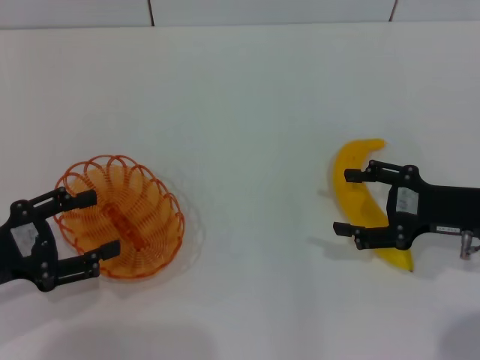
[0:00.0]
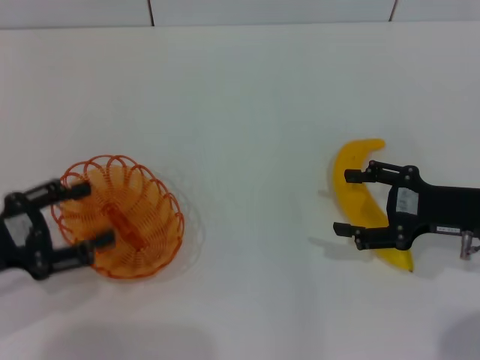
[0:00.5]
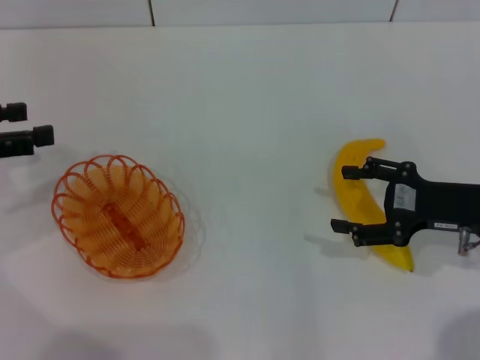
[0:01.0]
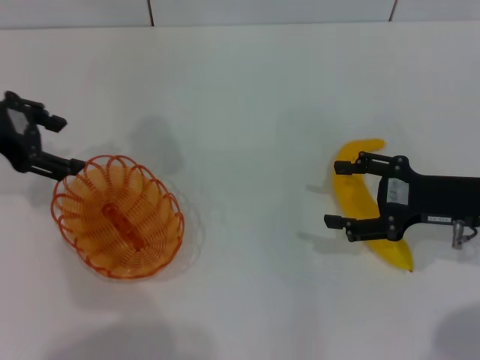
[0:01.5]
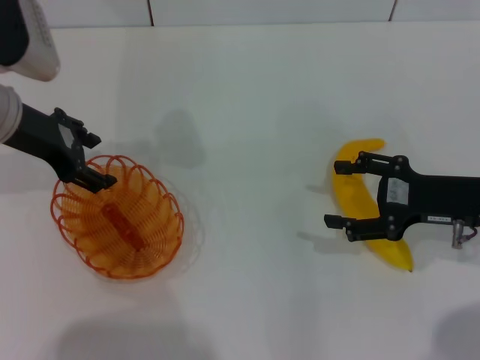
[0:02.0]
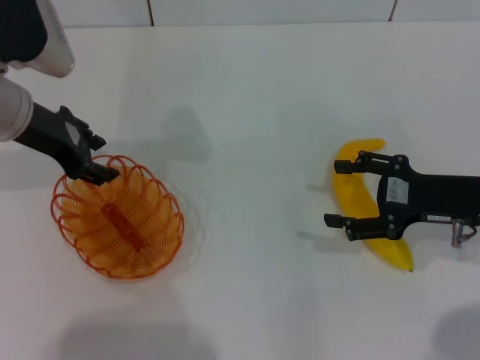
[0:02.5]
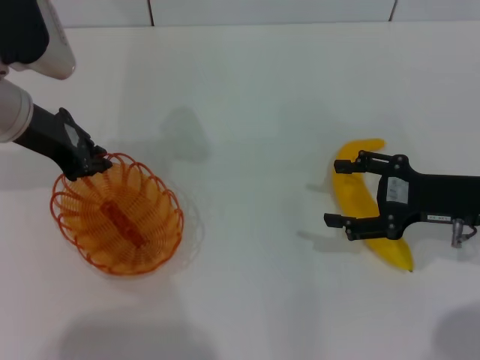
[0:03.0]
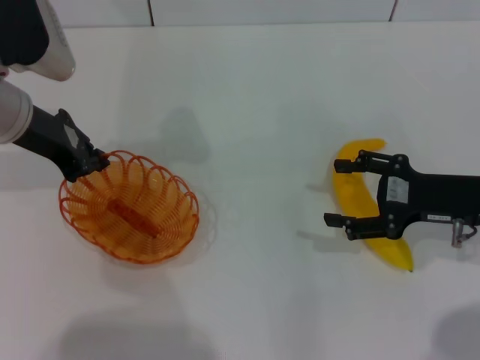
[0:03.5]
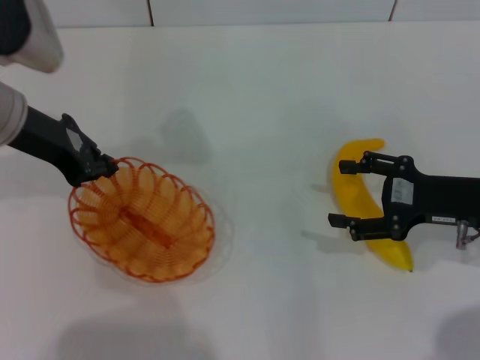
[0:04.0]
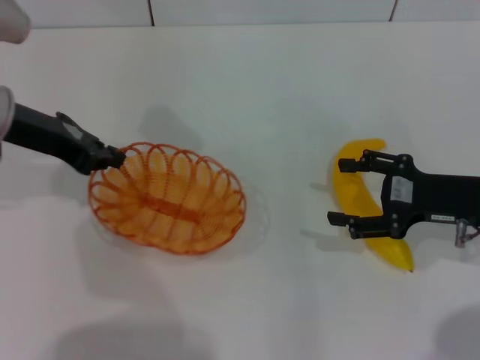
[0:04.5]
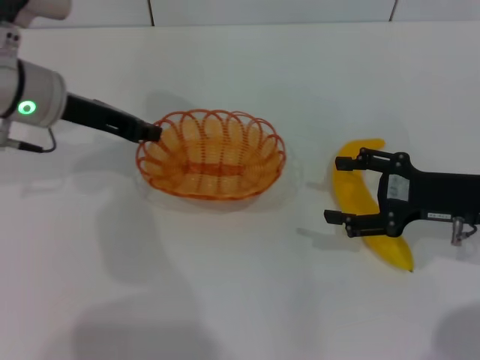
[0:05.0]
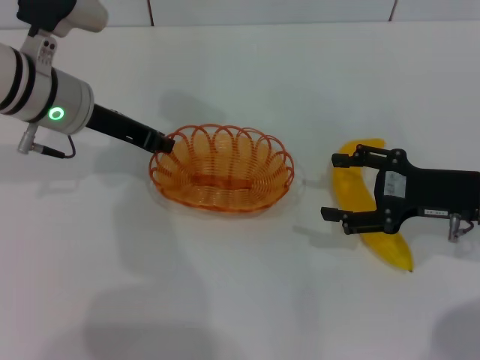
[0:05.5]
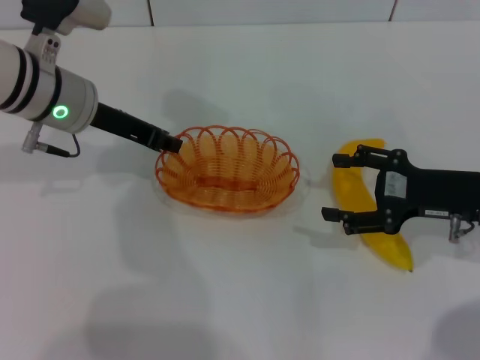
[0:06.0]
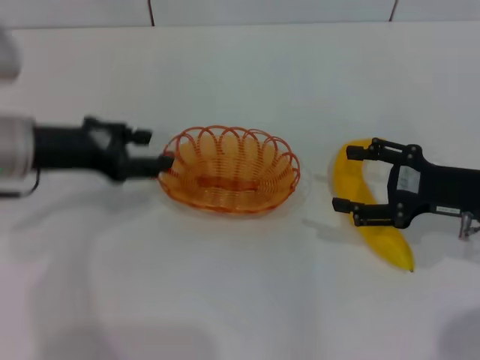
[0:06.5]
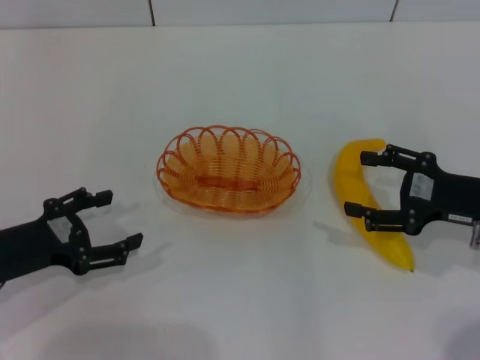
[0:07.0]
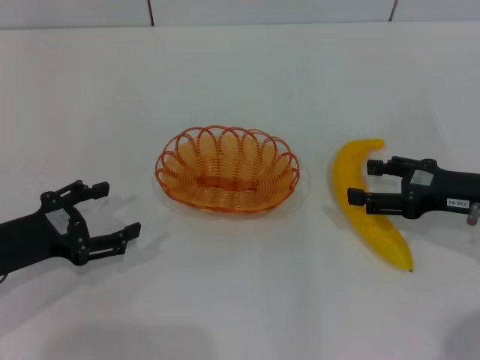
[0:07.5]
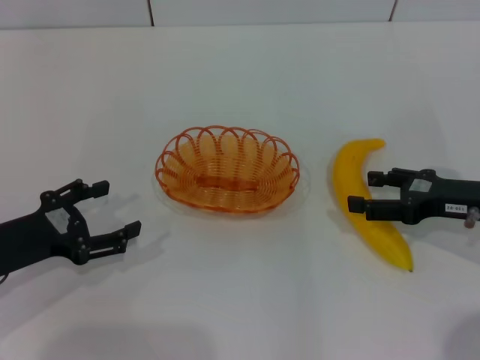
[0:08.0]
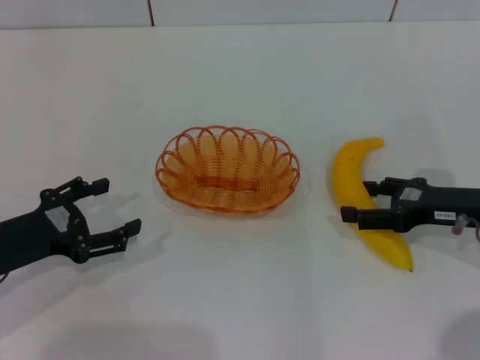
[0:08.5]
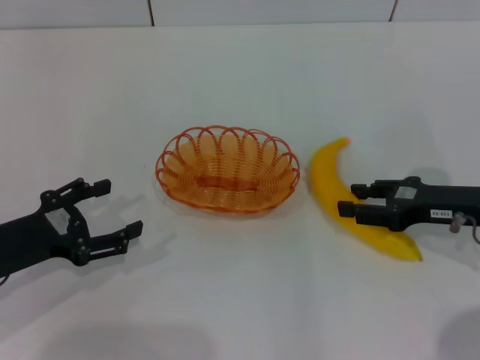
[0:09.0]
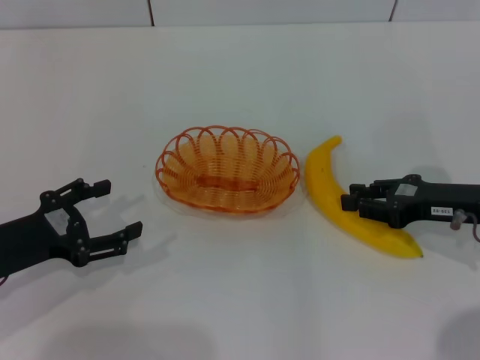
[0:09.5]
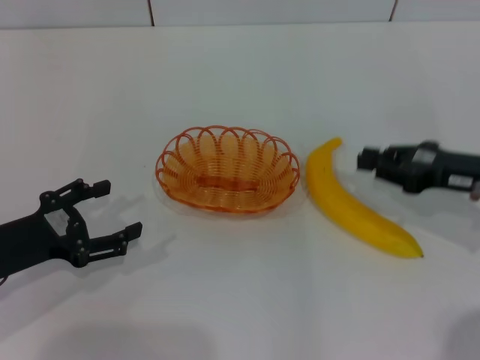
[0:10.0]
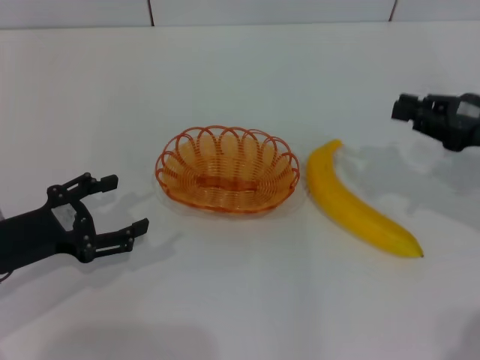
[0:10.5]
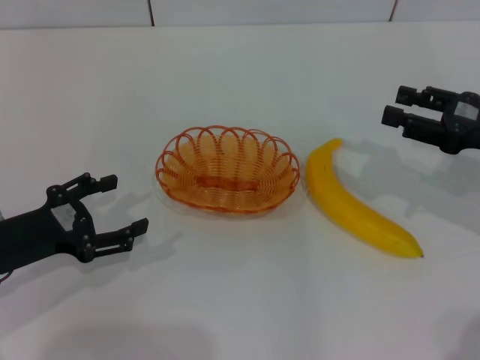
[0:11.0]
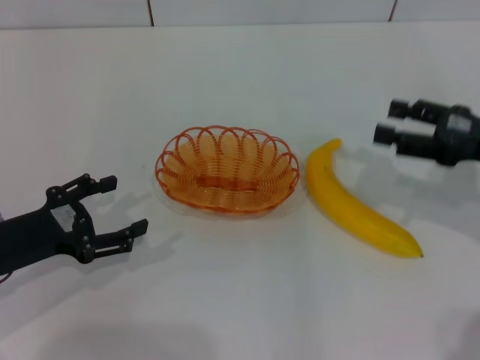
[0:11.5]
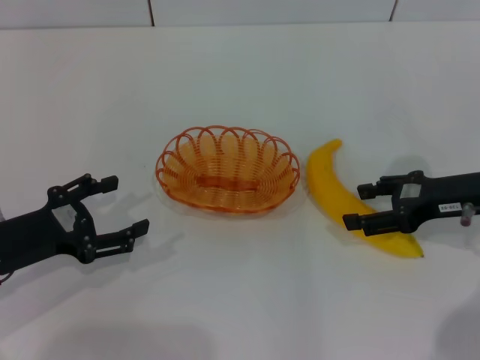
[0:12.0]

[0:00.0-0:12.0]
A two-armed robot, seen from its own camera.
Step, 0:00.0 to 0:04.0: Pick up the basket with the left gripper.
Step, 0:04.5 to 0:06.5: Place the basket in the center of view with the left gripper.
0:00.0 to 0:02.0: The left gripper is displaced forward, upward and to the right by about 20 cm.
0:02.0 to 0:04.0: The left gripper closes up.
0:04.0 to 0:06.0: The left gripper is displaced to the right by approximately 5 cm.
0:06.0 to 0:08.0: The left gripper travels backward, to the left and downward by about 20 cm, and opens.
0:08.0 to 0:10.0: The right gripper closes.
0:10.0 to 0:12.0: The right gripper opens.

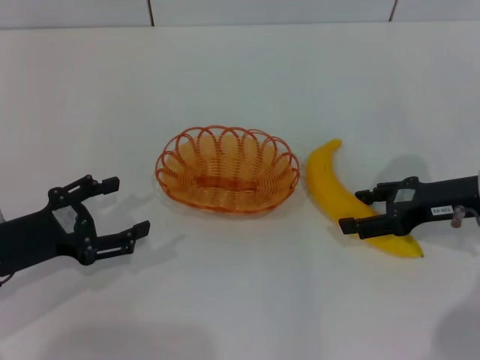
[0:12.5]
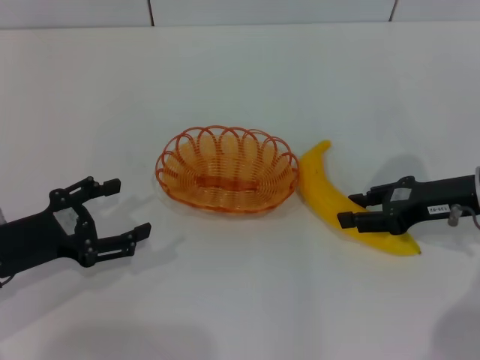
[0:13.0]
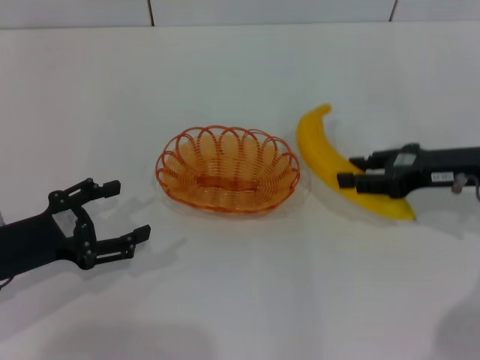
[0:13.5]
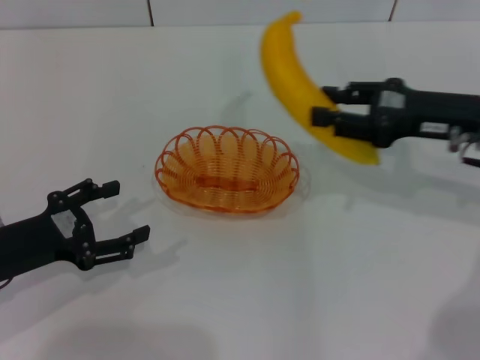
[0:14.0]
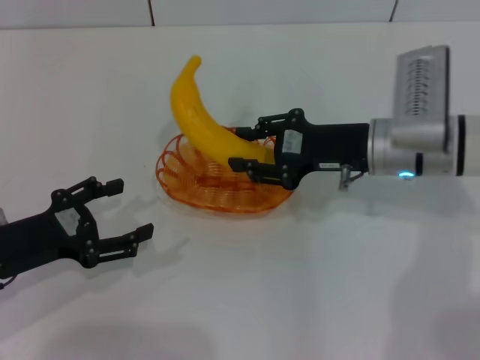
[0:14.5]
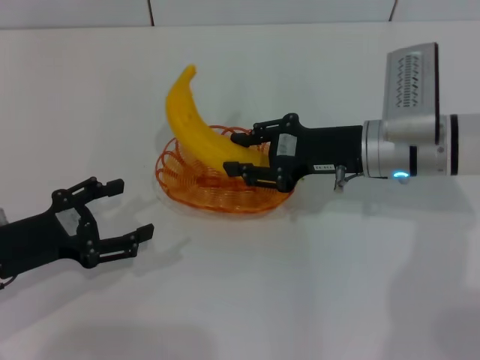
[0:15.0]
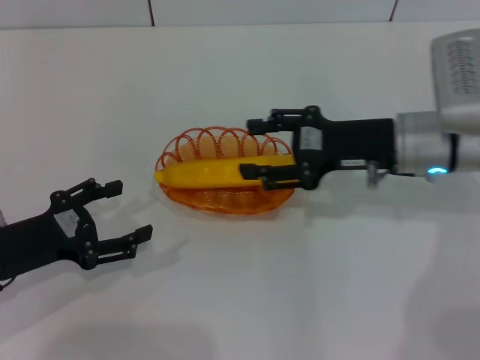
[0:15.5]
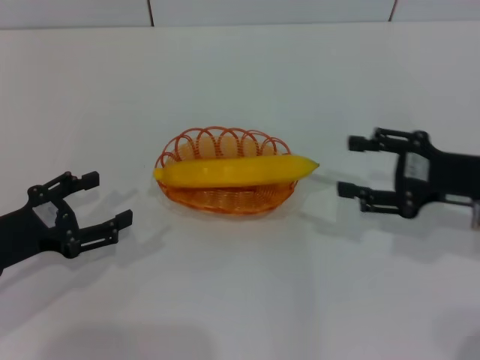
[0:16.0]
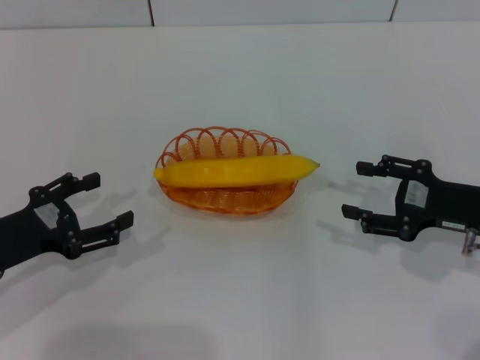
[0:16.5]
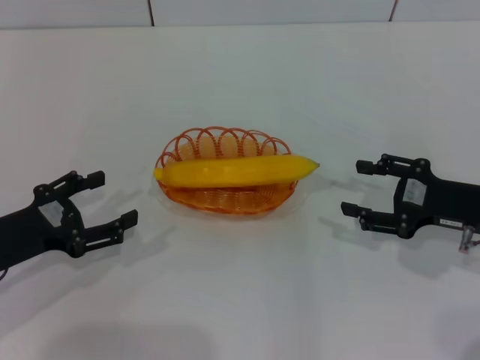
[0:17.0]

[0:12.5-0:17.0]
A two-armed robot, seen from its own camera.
Step, 0:14.0 to 0:15.5: Place the banana into the basket with the right gripper.
0:12.5 to 0:14.5: The right gripper goes roughly 10 cm to the left, and closes up.
0:14.5 to 0:17.0: The right gripper heads to the right and backward, covering some 15 cm, and opens up.

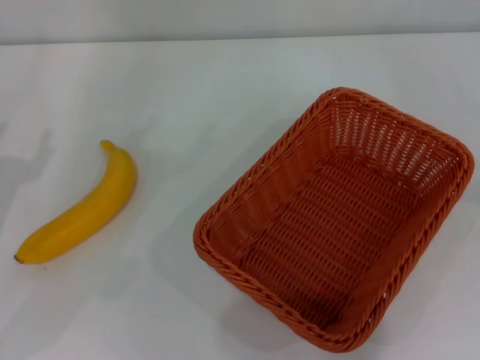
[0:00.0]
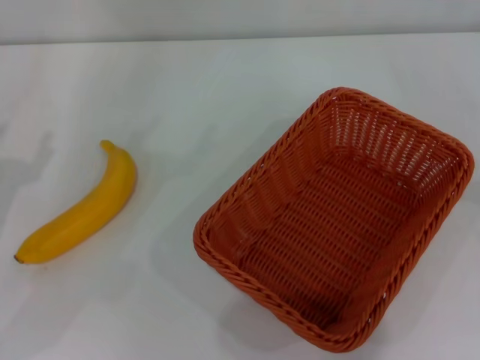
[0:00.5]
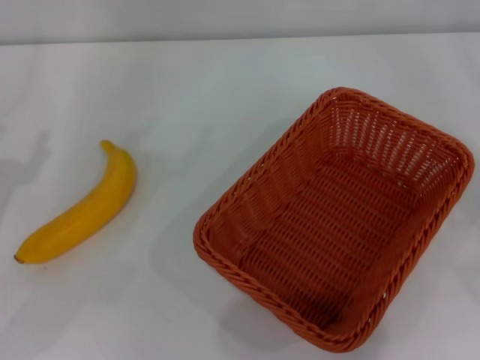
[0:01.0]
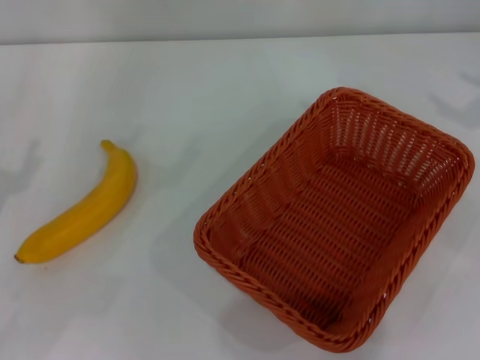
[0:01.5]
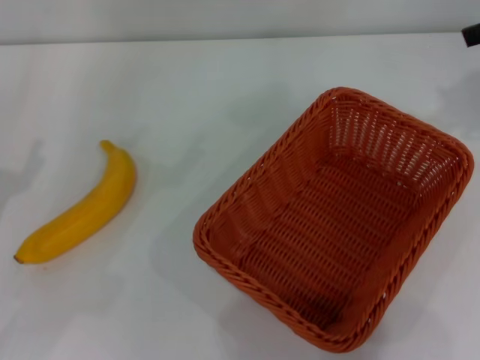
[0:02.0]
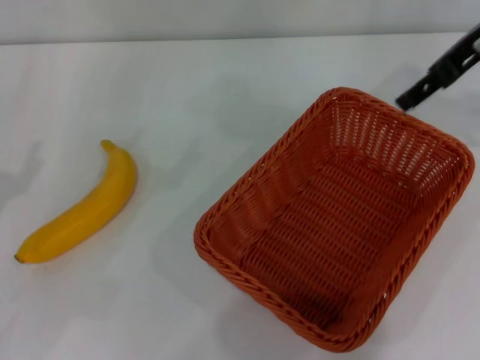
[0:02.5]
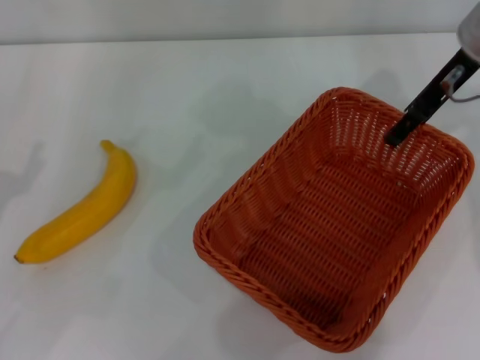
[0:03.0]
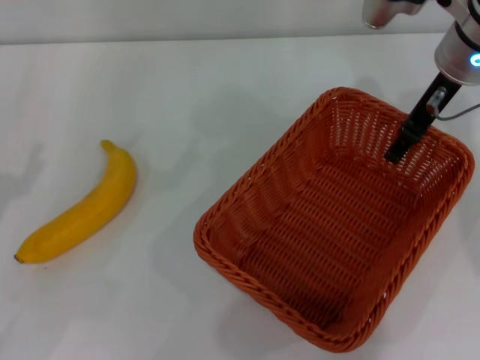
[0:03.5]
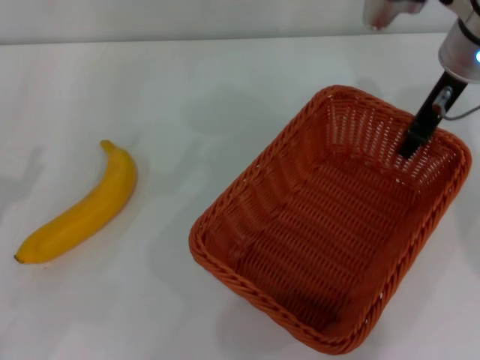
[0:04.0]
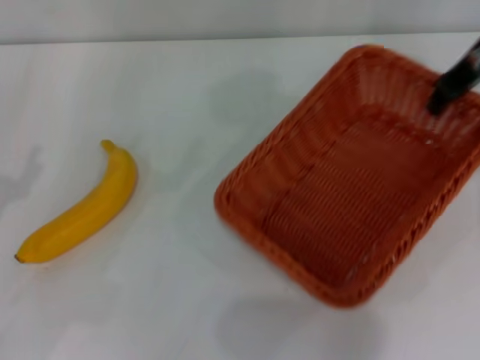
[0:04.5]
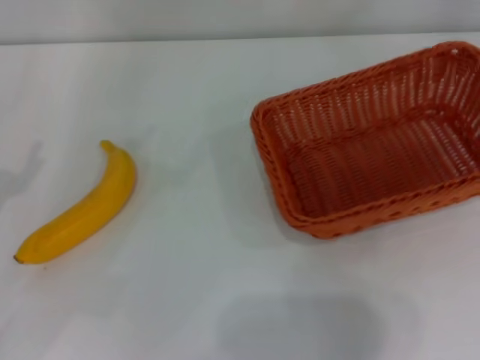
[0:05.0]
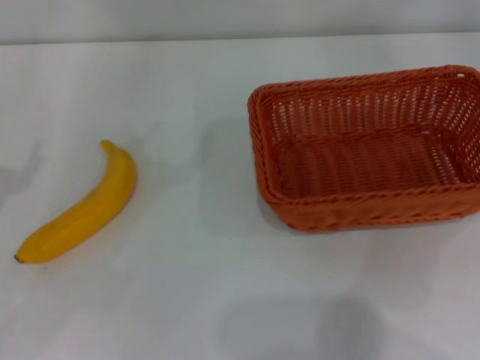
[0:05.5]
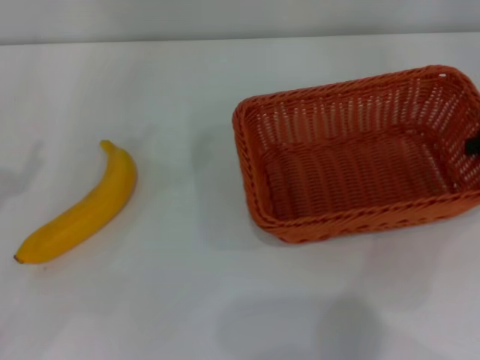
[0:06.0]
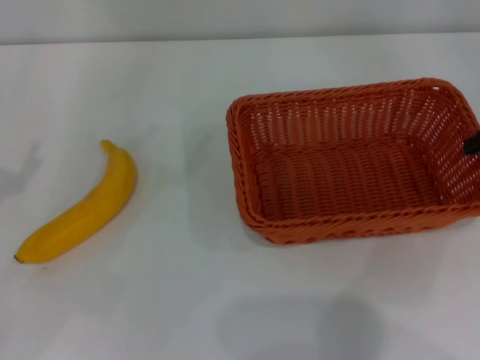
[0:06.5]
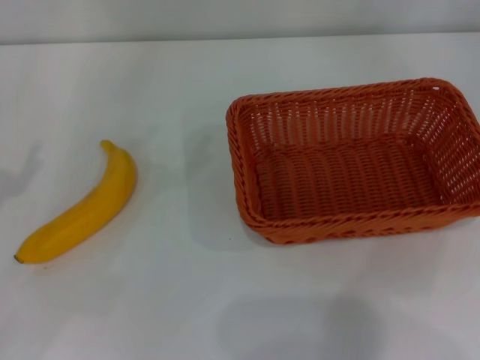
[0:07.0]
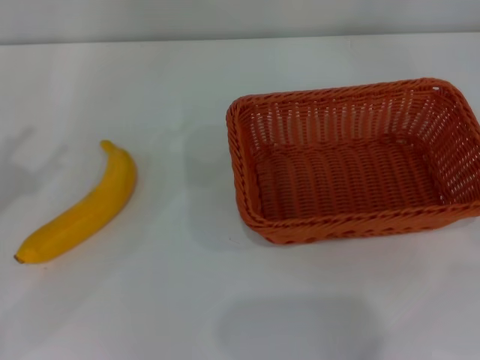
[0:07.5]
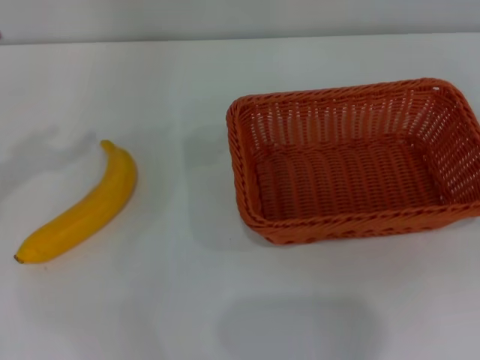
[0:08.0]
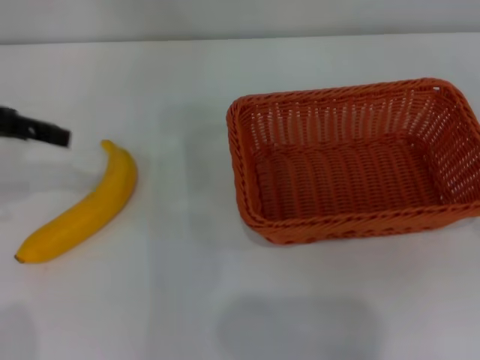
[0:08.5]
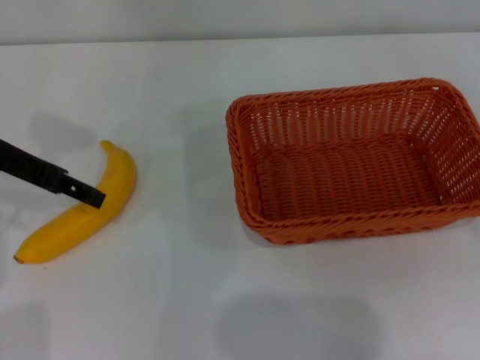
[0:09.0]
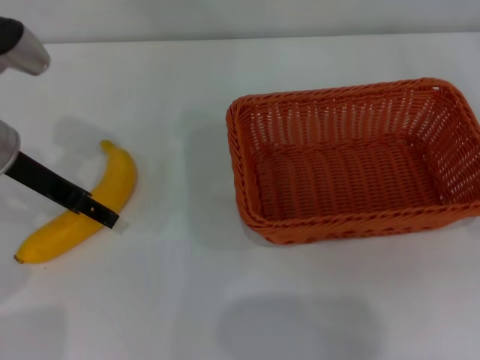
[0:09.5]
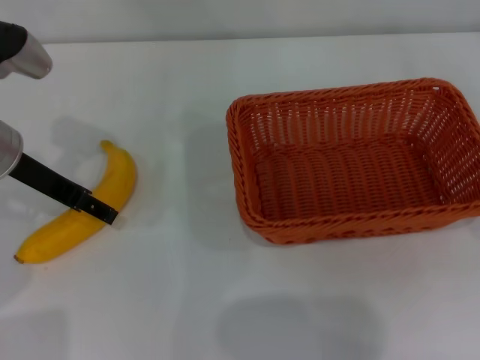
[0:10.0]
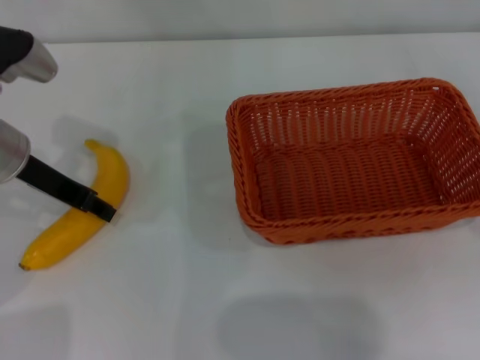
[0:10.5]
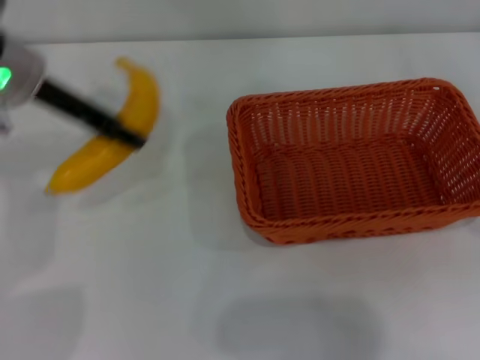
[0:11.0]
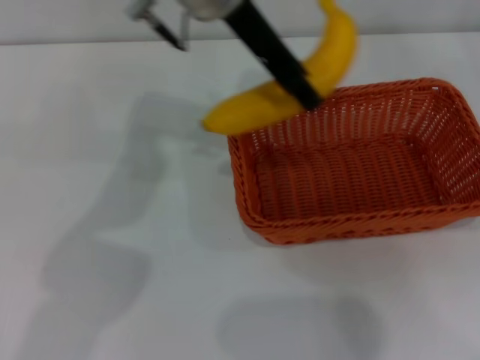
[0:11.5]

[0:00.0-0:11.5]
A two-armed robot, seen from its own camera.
Step, 0:00.0 to 0:04.5: Pick up the light basket with the right gripper.
Step, 0:05.0 to 0:07.0: Place the light basket in the center of view with the right gripper.
Step, 0:07.5 to 0:10.5: Pick up the banana with the left gripper.
0:02.0 to 0:04.0: The right gripper is displaced to the left and downward by some 15 cm.
0:04.0 to 0:06.0: The right gripper is displaced to the right and backward by approximately 20 cm, and closes its fingers.
0:06.0 to 0:07.5: The right gripper travels to the right and upward by approximately 10 cm. Meanwhile the left gripper goes about 5 cm upward.
0:07.5 to 0:09.5: The left gripper moves forward and to the right, roughly 15 cm.
0:09.5 to 0:11.5: The left gripper shifts roughly 25 cm to the right and upward, and closes its fingers.
